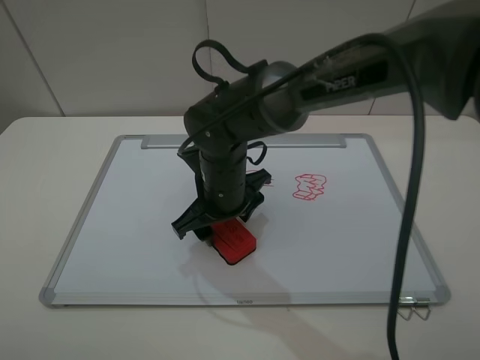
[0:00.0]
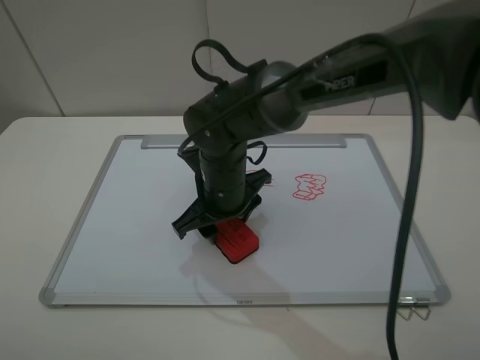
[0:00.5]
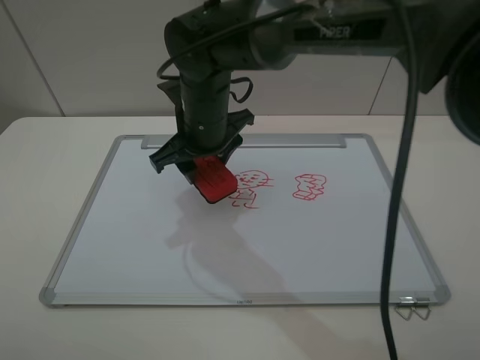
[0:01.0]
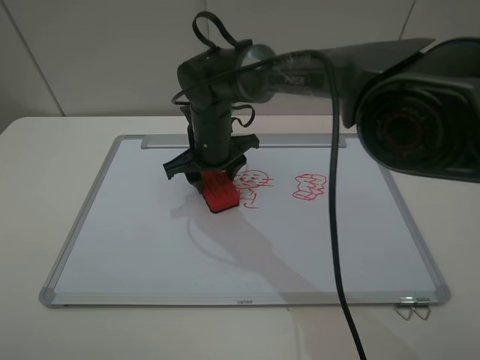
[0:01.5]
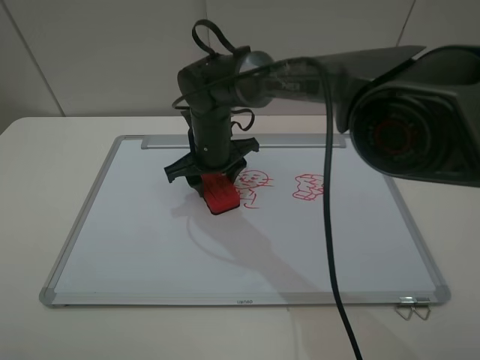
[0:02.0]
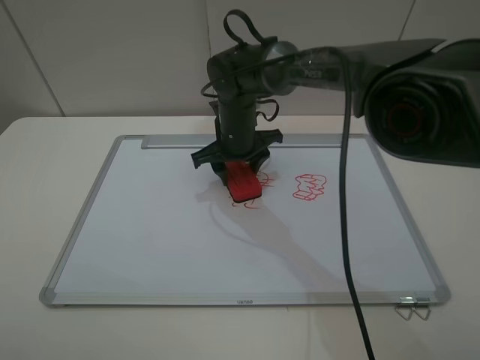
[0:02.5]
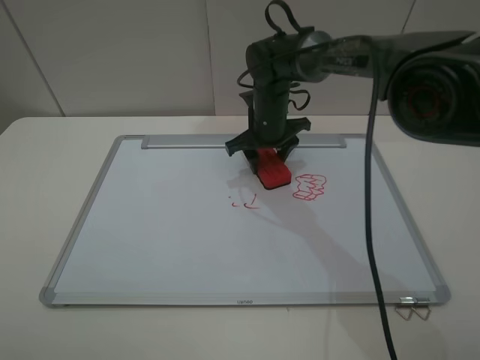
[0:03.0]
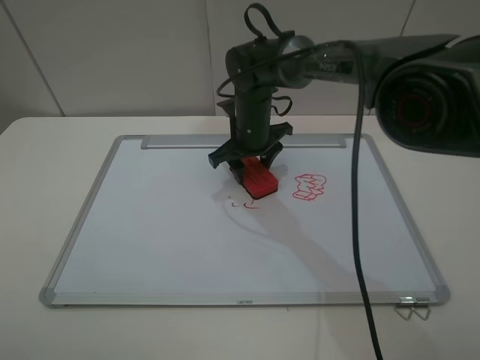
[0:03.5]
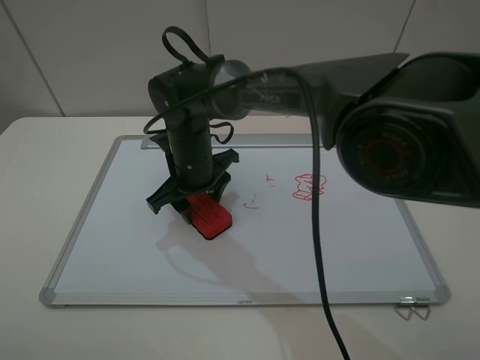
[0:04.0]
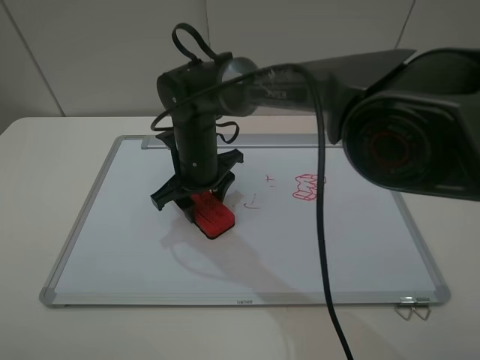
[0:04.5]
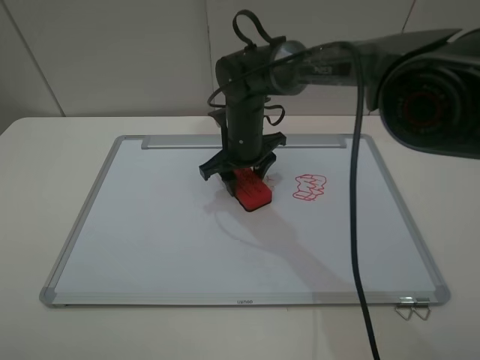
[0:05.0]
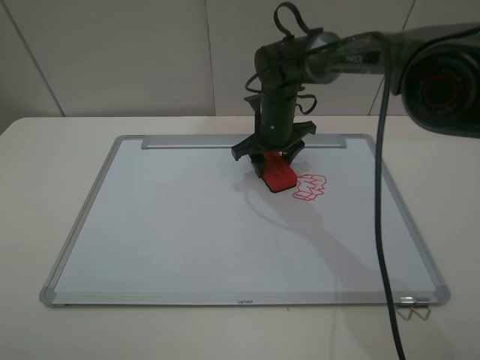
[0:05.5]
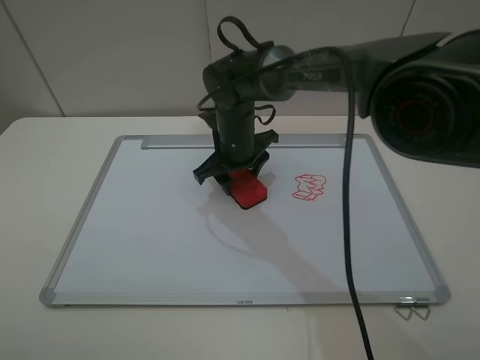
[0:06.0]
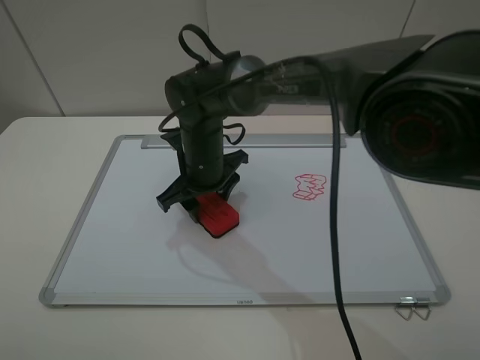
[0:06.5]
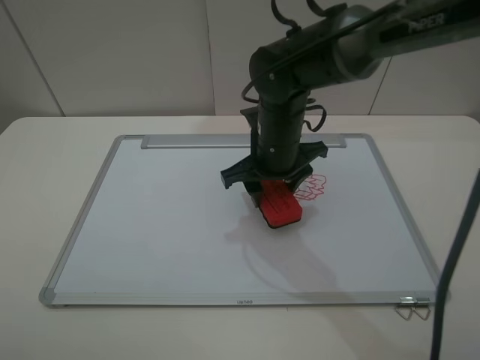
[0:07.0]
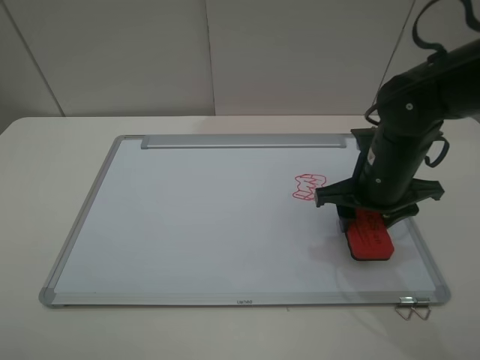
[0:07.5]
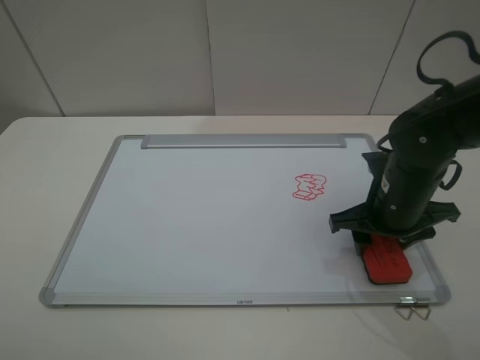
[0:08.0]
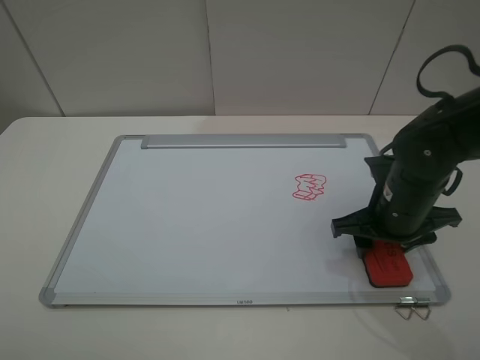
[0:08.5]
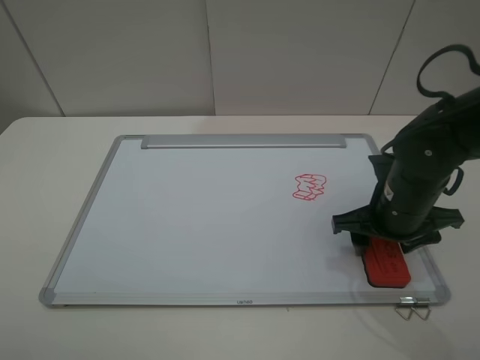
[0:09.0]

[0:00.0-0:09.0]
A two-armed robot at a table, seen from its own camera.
Step, 0:00.5 to 0:06.5: Grasp the eraser and wipe the blackboard with the right gripper.
0:00.0 to 0:02.0: The right gripper heads forward, covering about 10 cm.
0:02.0 to 0:04.5: The right gripper goes to the right and returns, some 10 cm each way.
0:04.5 to 0:07.0: The right gripper goes left and right, about 10 cm each way, reversing 2 times.
0:07.0 to 0:09.0: The right gripper travels to the right and backward by about 15 cm, and opens.

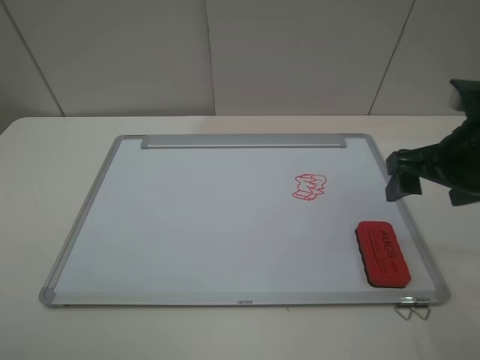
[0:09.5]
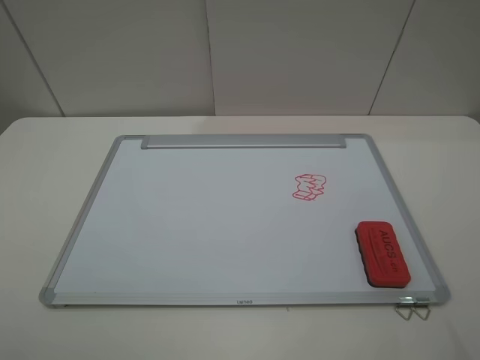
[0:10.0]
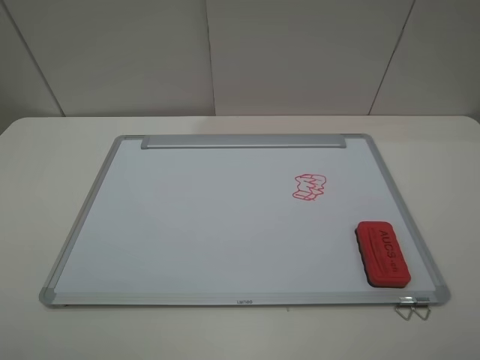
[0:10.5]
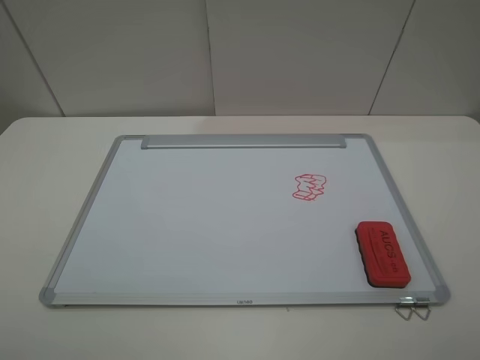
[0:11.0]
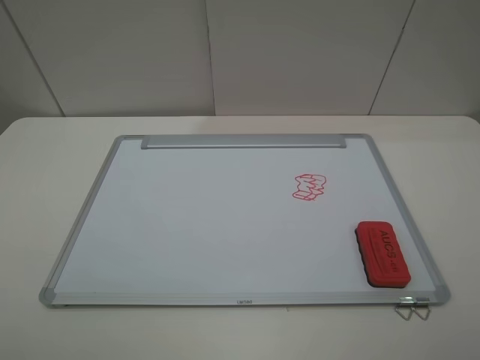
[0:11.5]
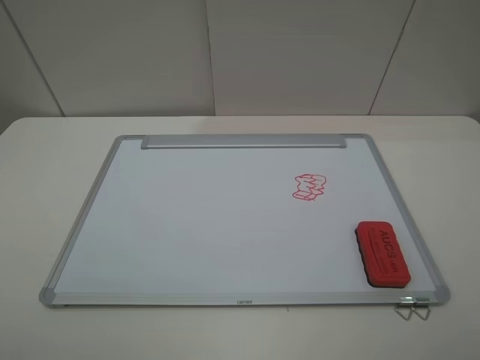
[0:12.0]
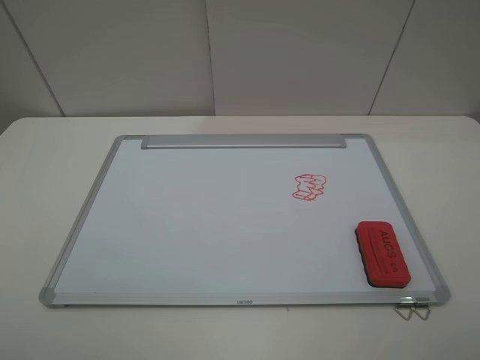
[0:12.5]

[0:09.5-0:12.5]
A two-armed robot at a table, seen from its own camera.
0:09.5 to 0:11.0: The right gripper heads backward, covering approximately 20 cm.
0:11.0 to 0:12.5: Neither gripper changes place.
